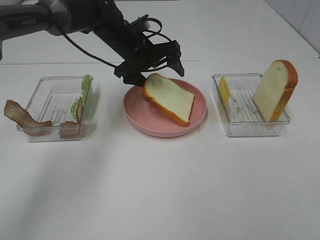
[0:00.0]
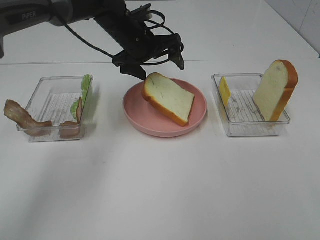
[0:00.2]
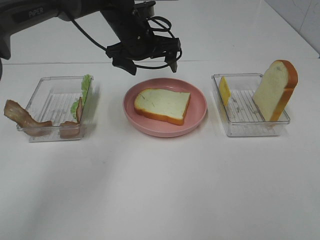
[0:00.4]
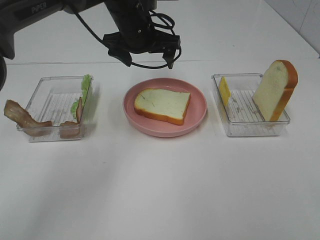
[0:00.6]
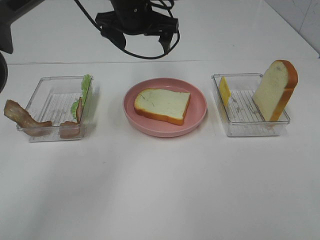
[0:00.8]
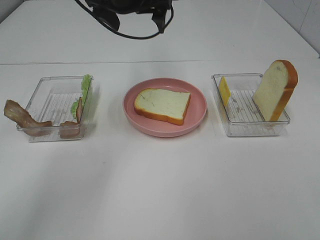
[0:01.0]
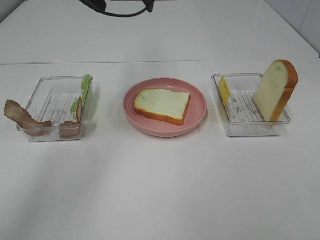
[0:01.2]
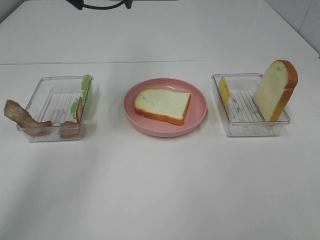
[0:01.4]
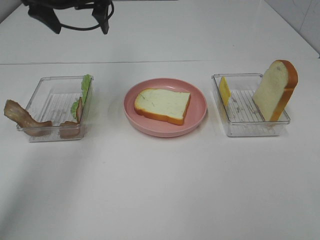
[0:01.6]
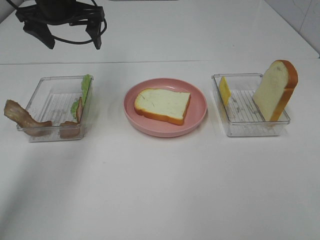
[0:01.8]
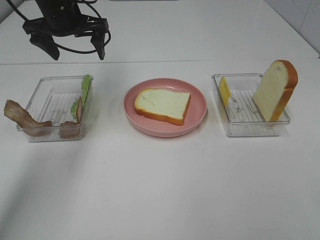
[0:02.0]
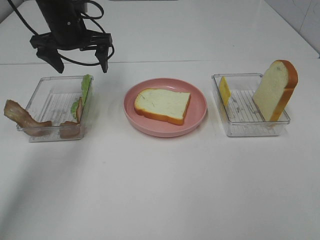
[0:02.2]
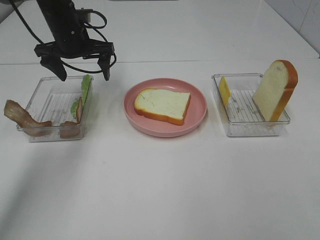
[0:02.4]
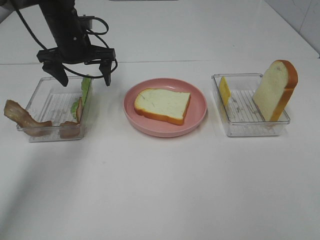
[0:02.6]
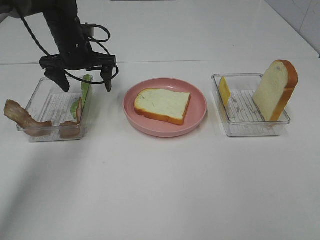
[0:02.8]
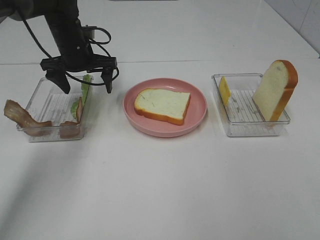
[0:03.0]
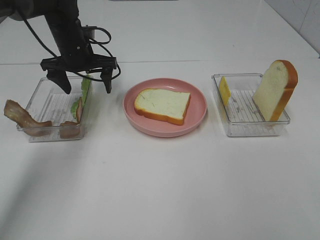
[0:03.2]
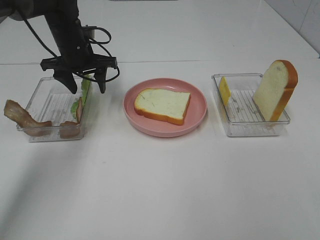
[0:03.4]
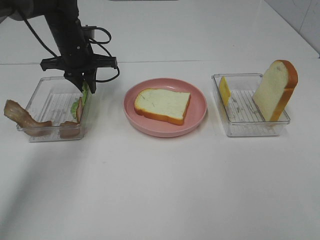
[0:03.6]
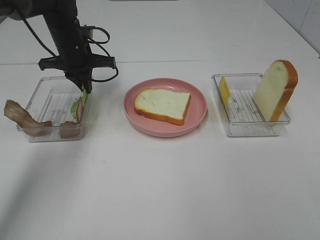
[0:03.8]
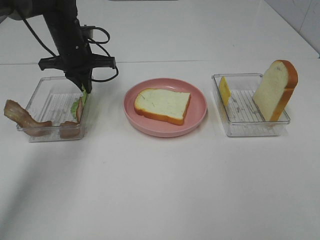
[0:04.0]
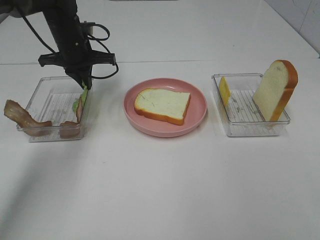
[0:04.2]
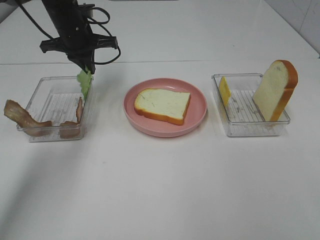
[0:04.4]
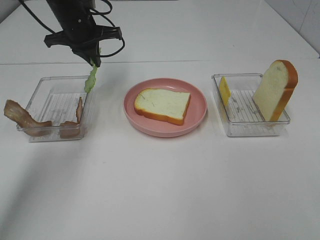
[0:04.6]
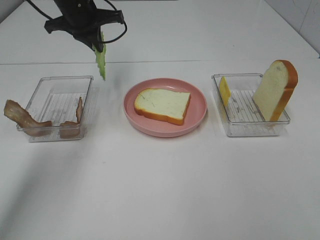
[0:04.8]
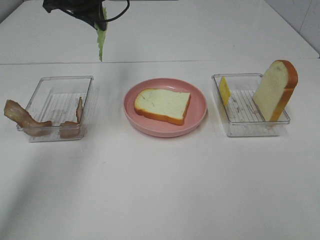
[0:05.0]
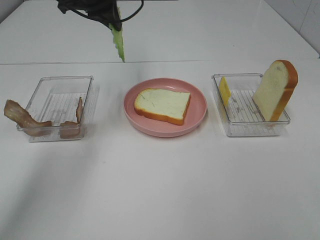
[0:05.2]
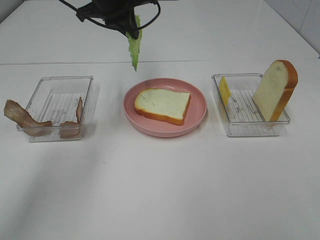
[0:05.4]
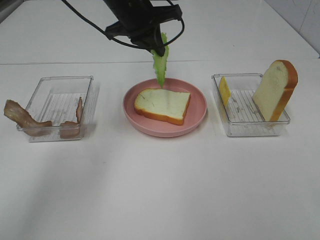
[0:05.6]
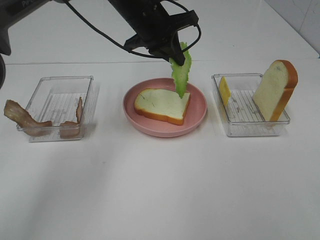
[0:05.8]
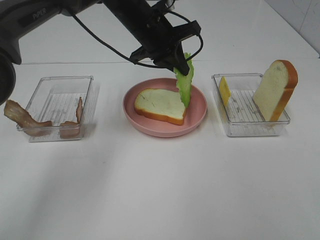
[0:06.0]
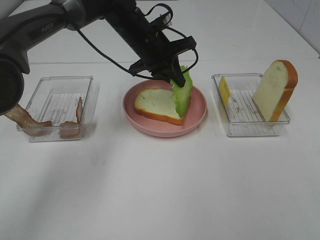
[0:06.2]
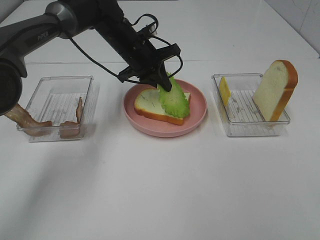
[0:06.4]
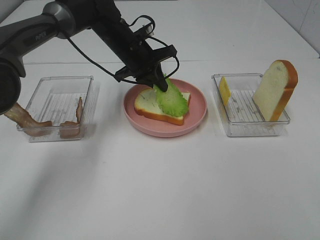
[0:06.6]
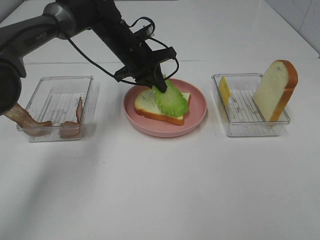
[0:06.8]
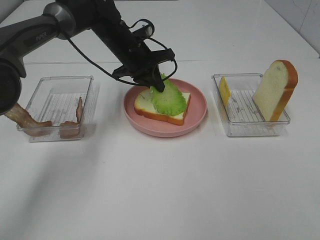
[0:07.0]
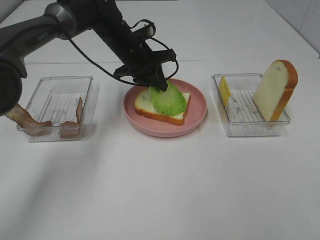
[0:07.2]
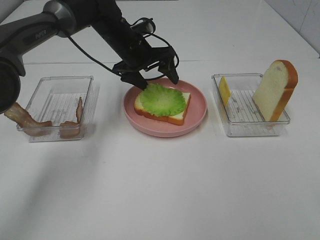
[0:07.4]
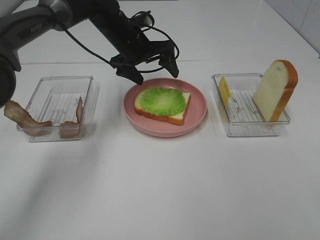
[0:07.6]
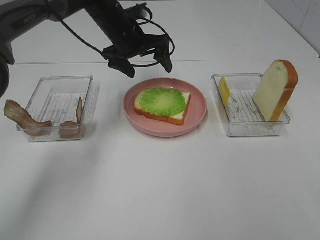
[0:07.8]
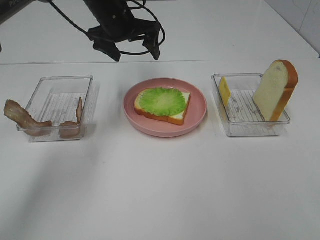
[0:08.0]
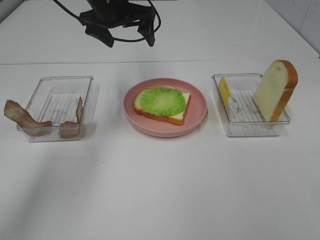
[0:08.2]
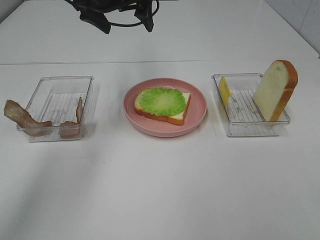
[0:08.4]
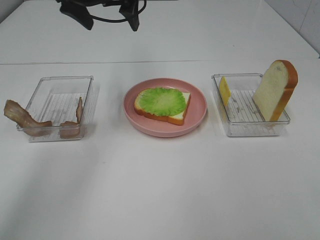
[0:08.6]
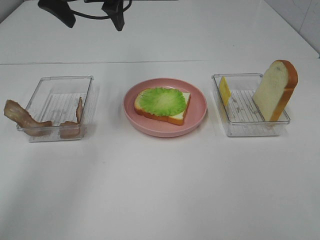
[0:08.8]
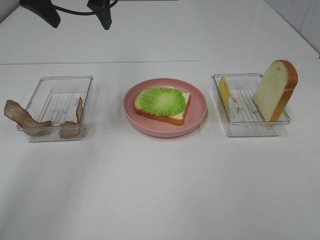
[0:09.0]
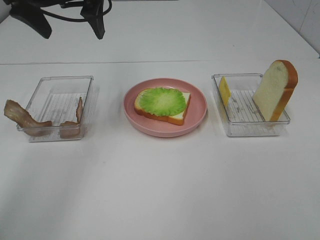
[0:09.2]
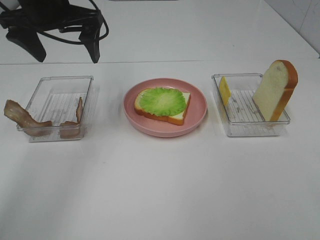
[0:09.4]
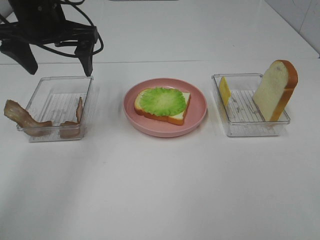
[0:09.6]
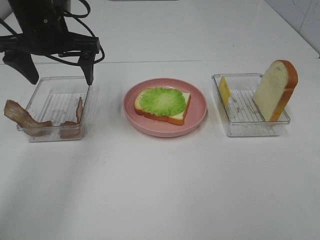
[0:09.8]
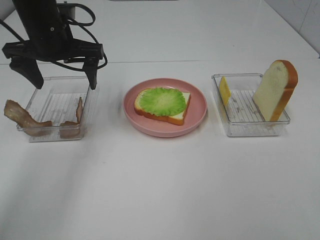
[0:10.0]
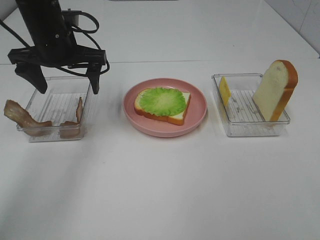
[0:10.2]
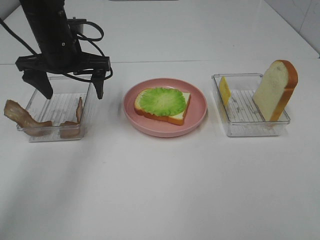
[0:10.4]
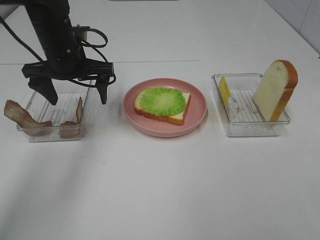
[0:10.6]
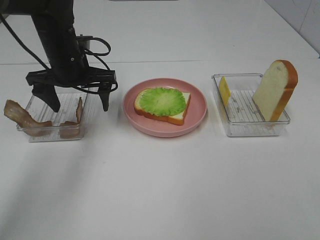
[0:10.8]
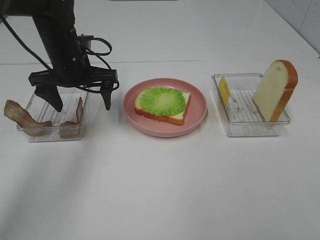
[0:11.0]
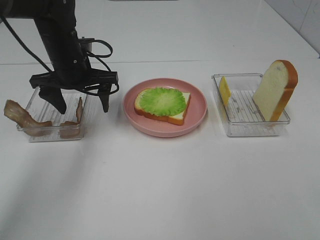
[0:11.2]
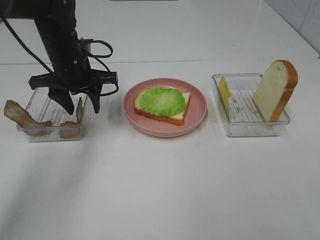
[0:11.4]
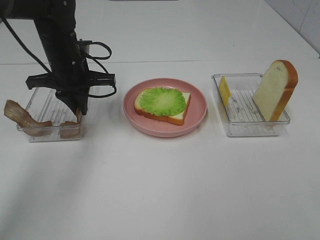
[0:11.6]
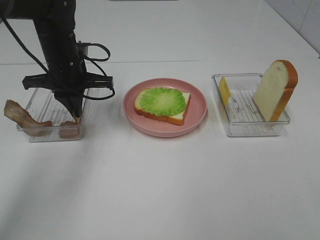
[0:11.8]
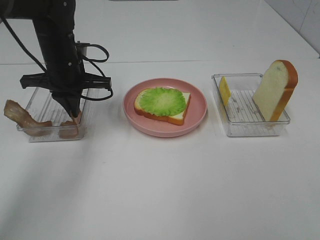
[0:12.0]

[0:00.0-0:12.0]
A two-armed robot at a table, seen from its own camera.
Task of the whole recording: Make sandwiches.
Step, 0.6 to 4.2 s: Left hand:grab the lettuce slice.
Step, 4.4 to 7.4 s: Left hand:place the lettuce slice on the bread slice.
Step, 7.6 to 11.8 s: Left hand:grab the bacon.
0.0 to 1.6 s: The left gripper goes some 15 cm upward and to the left.
1.6 to 3.0 s: The left gripper is displaced downward by roughly 15 cm.
3.0 to 4.4 s: The left gripper closes its fingers.
4.4 to 6.0 s: The left gripper is displaced to the right by some 15 cm.
6.0 to 7.6 s: The left gripper ends up roughly 5 cm from where it was, and opens its fingers.
7.6 to 9.0 s: The left gripper travels upward, to the left and backward by about 20 cm.
9.0 to 10.4 s: The left gripper goes about 15 cm downward.
10.4 to 12.0 s: The left gripper closes up.

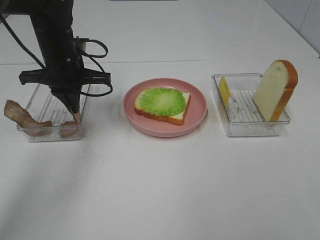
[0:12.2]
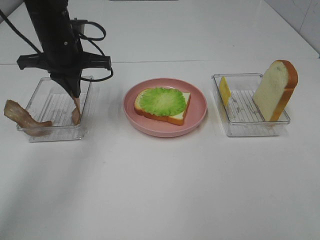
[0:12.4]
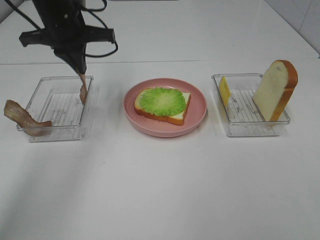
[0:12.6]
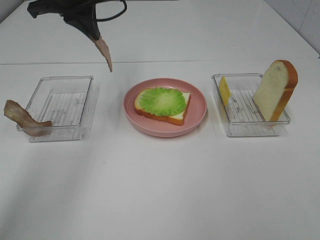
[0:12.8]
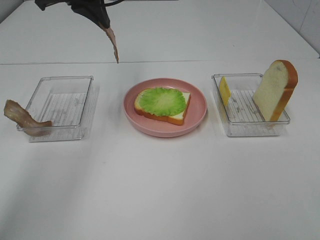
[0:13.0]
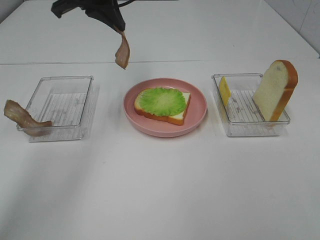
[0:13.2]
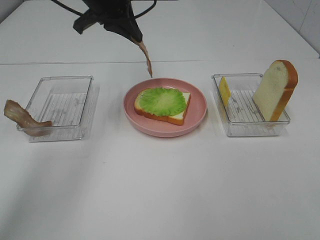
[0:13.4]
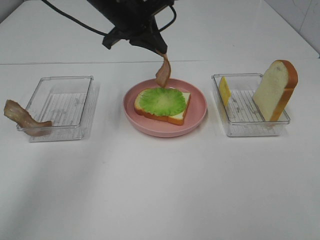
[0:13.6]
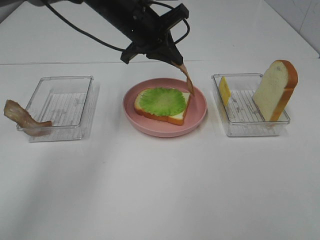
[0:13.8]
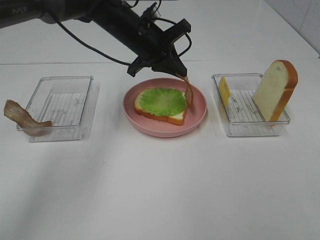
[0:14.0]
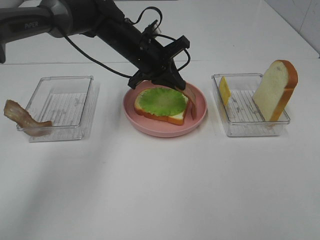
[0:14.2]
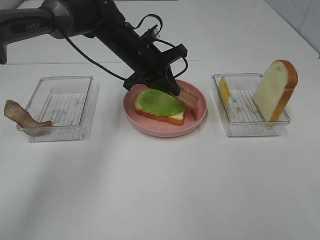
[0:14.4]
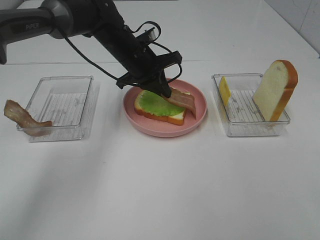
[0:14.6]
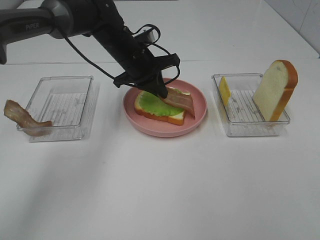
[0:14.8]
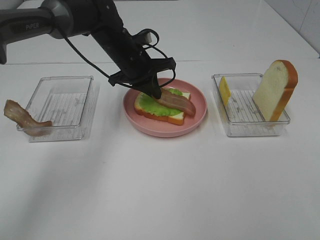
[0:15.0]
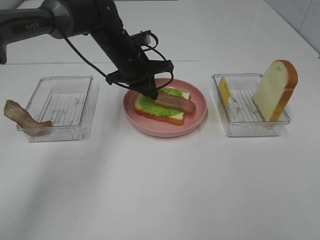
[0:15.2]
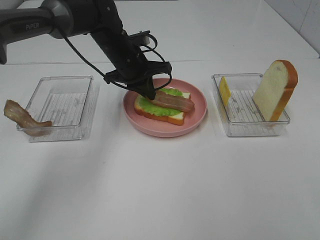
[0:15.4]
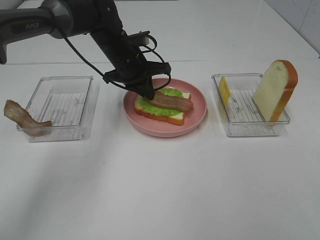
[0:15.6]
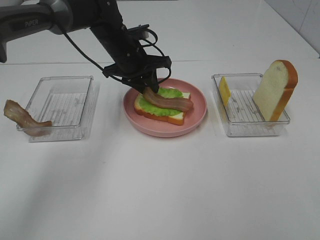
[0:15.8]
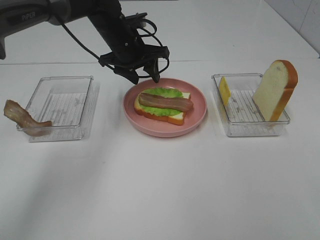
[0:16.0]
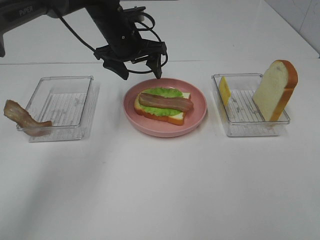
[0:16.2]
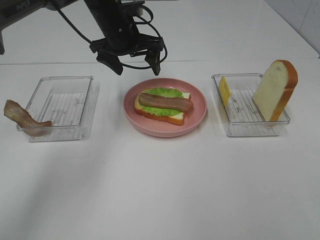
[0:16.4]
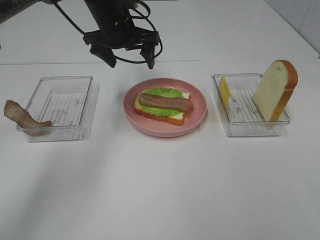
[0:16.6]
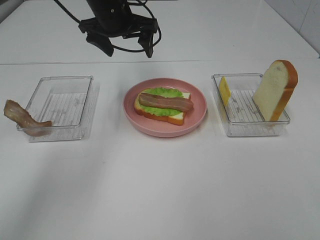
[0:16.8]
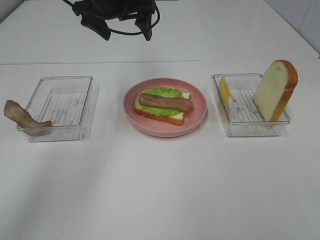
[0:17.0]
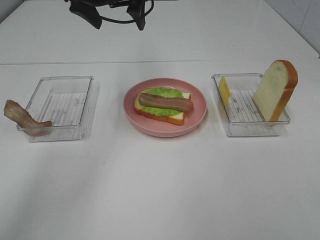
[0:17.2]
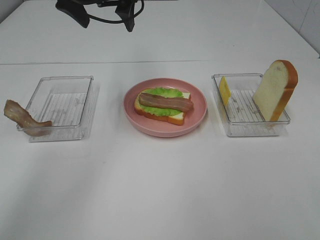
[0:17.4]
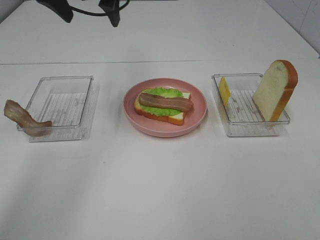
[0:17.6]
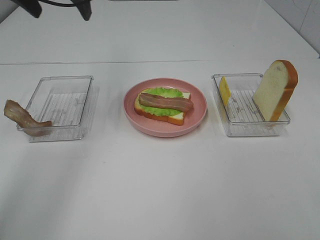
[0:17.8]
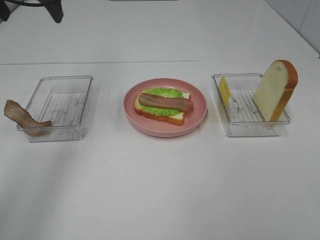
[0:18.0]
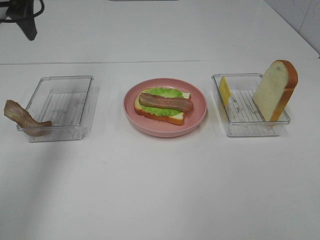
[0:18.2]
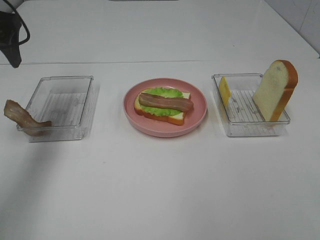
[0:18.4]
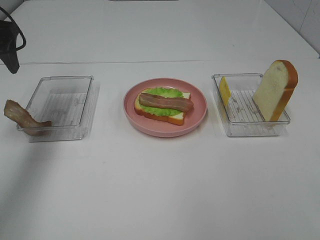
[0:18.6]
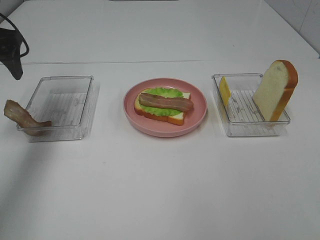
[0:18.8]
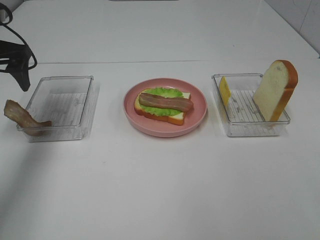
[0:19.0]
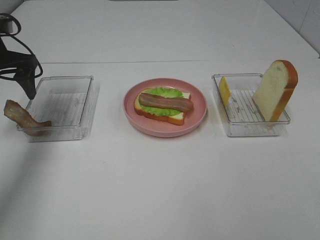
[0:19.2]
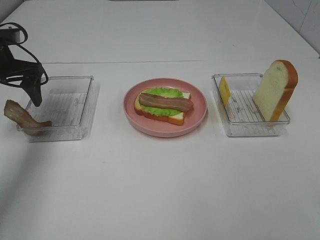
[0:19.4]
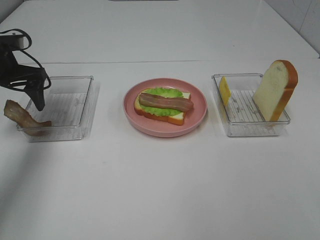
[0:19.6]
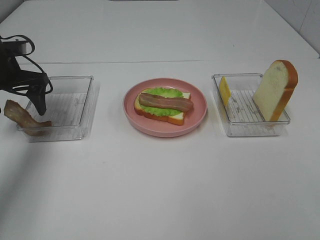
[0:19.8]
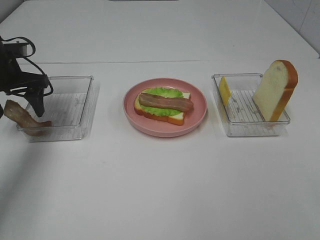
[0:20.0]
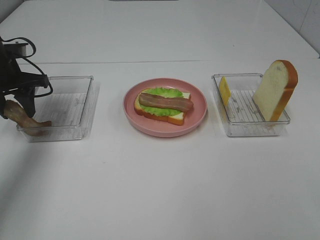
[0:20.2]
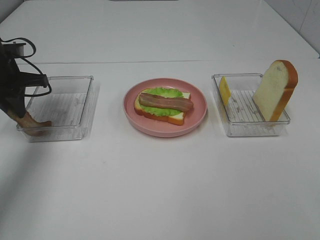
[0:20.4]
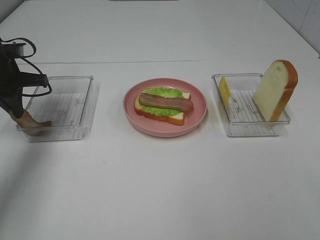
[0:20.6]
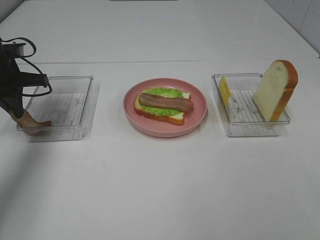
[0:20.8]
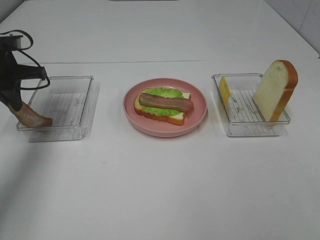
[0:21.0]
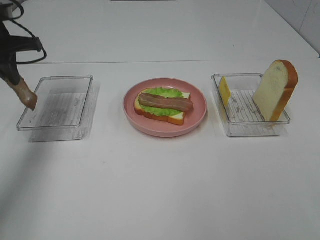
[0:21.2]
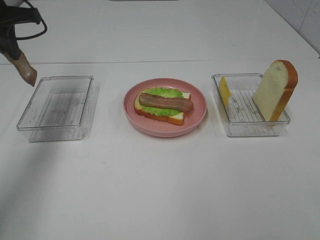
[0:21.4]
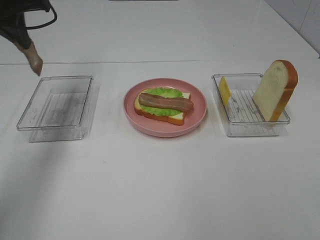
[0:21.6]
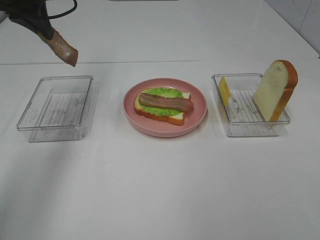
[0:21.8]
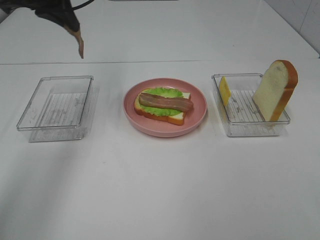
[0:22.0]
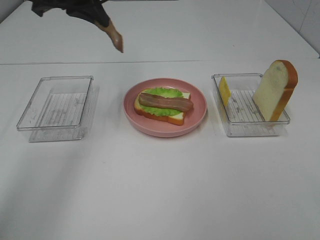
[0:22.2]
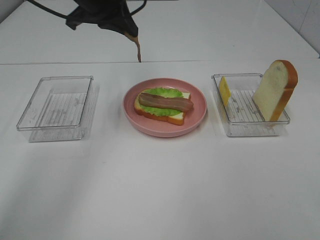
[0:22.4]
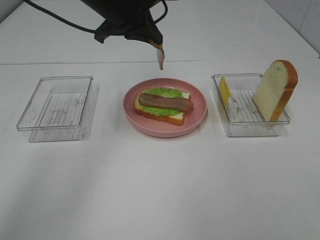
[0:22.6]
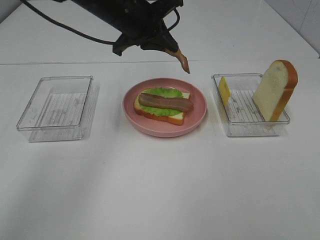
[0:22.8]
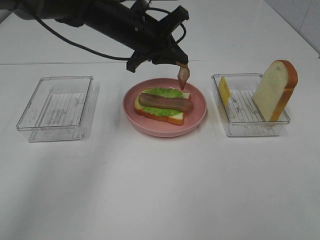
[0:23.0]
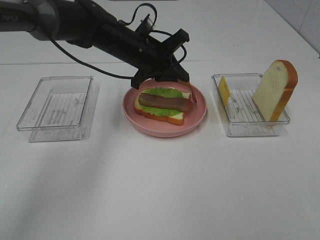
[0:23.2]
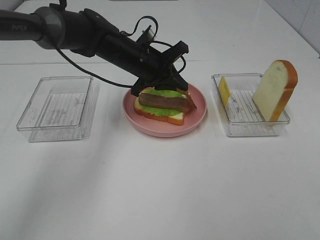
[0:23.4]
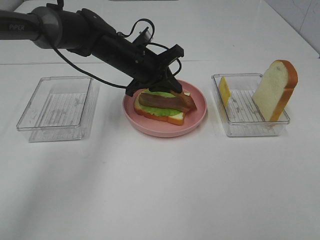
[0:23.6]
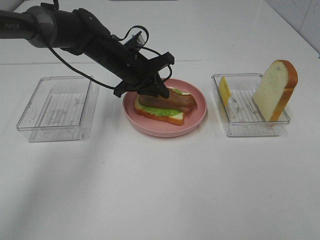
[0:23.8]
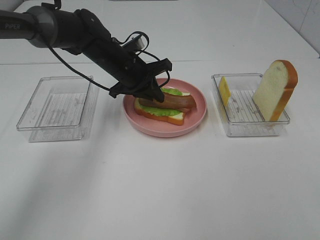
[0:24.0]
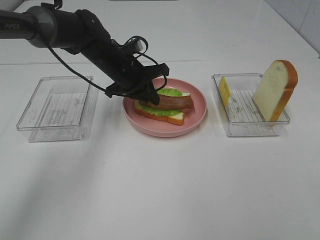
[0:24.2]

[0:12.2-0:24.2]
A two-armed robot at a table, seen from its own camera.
Task of the whole recording: Make sandwiches.
Step, 12.2 to 16.0 s: Left hand:place bacon on lettuce slice.
Step, 16.2 to 20.6 s: Left hand:grab the bacon.
12.2 to 13.8 s: The left gripper goes roughly 10 cm to the right, and reaches some 15 cm upward, then returns.
13.8 to 15.2 s: The left gripper heads downward, covering about 10 cm.
15.2 to 16.6 s: The left gripper moves upward, approximately 10 cm, and opens its fingers.
16.6 to 18.2 s: The left gripper travels to the left, upward and backward by some 25 cm.
18.2 to 19.8 s: The left gripper goes some 15 cm downward.
19.8 to 21.2 s: The left gripper moves upward, approximately 5 cm, and closes.
21.2 to 22.6 s: The left gripper heads to the right, covering approximately 20 cm.
22.6 to 24.2 s: The left gripper is displaced downward by approximately 15 cm.
